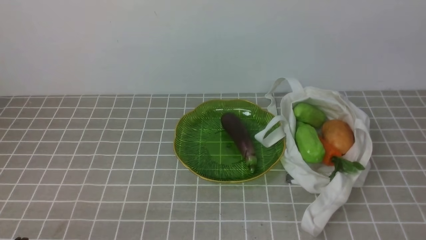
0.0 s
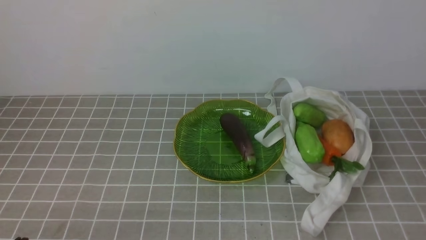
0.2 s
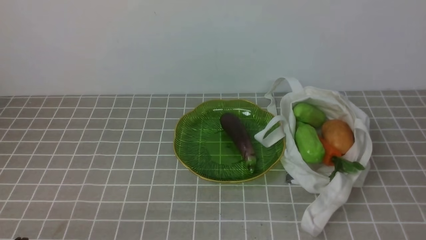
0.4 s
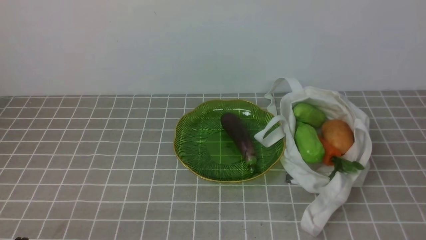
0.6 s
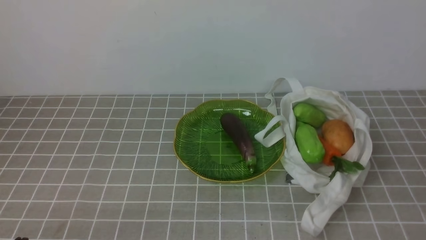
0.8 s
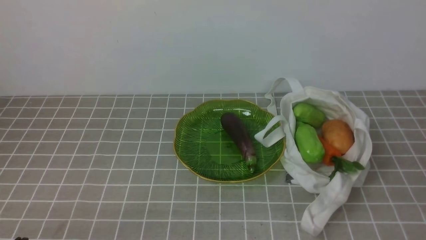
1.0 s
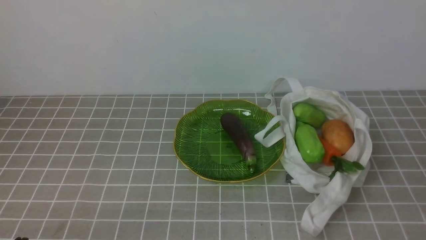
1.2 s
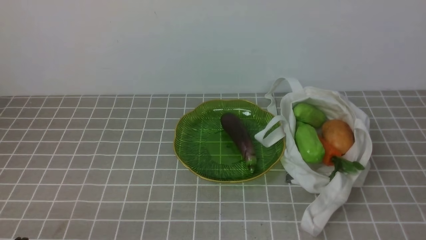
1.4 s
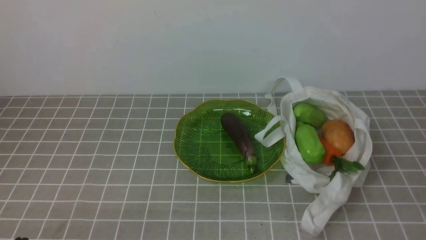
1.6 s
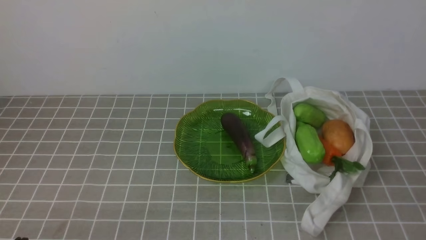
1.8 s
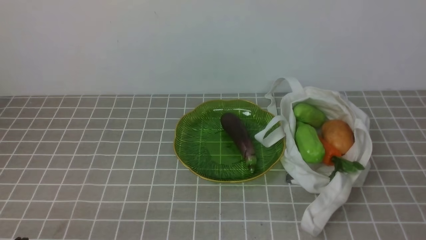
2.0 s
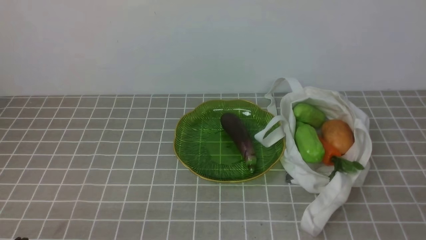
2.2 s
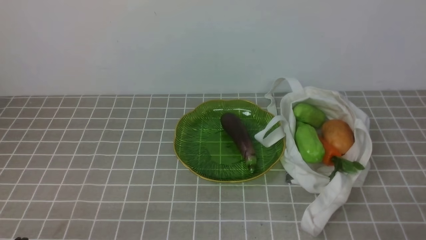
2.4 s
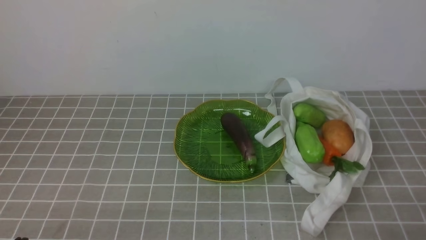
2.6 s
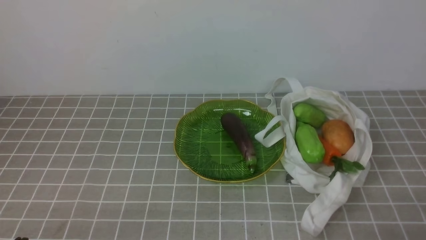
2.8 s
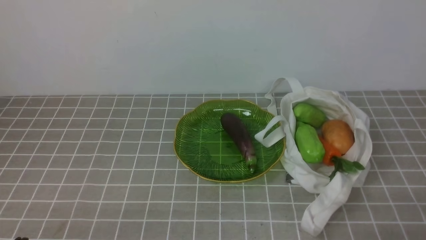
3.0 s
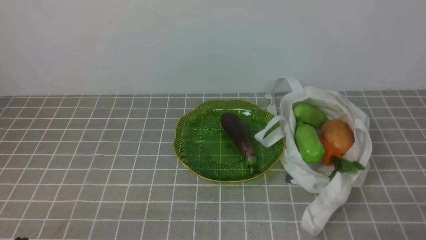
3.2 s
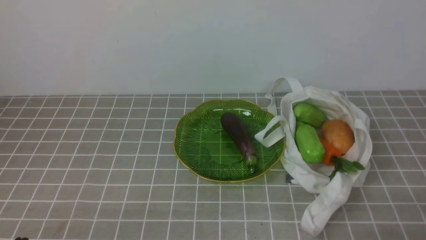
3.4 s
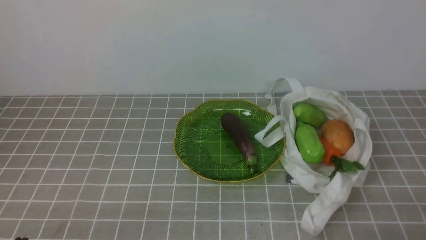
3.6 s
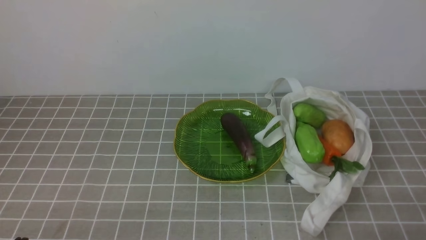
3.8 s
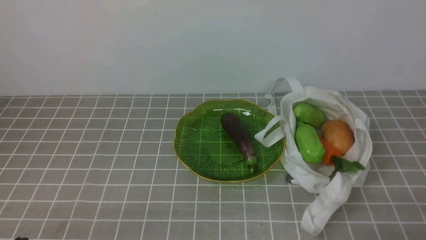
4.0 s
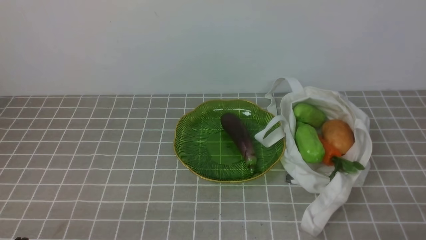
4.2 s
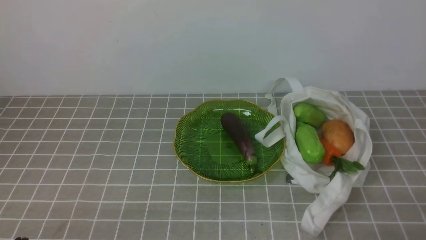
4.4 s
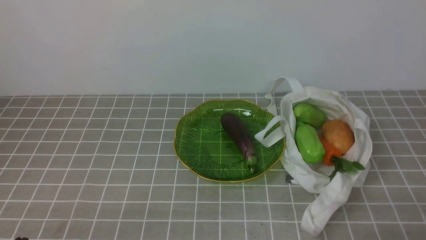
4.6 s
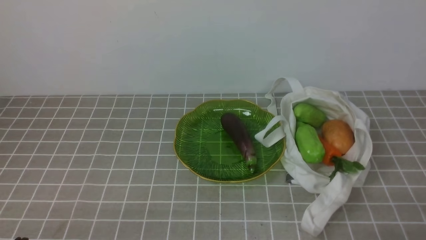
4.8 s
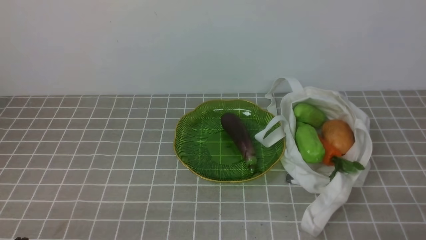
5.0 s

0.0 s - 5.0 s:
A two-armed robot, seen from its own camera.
Task of the whole recording: take vegetables from bag on grey coffee tablecloth place on plate.
3.4 s - 5.0 s: Both grippers stay put.

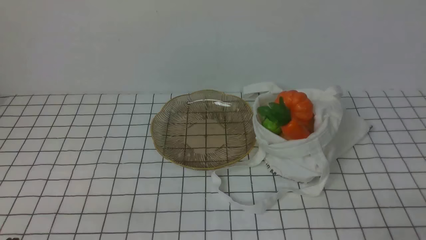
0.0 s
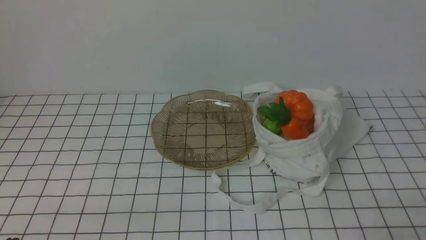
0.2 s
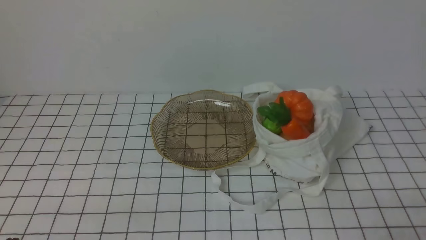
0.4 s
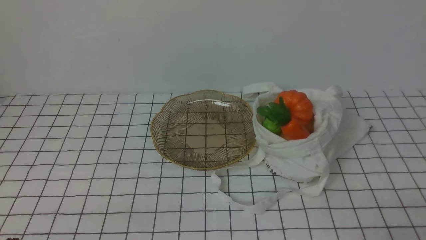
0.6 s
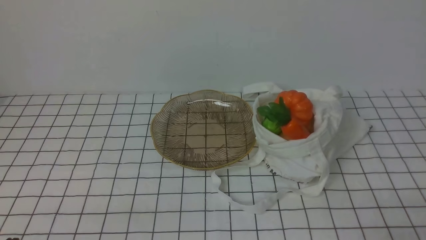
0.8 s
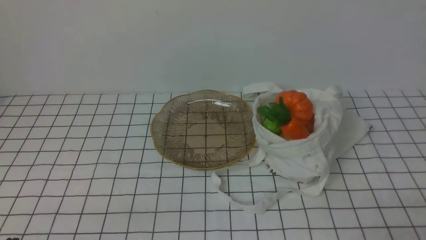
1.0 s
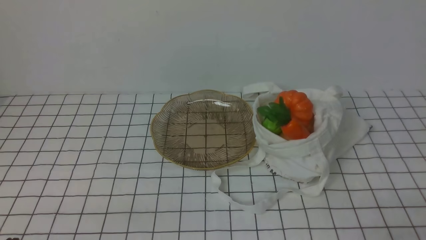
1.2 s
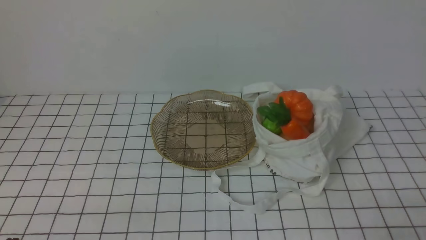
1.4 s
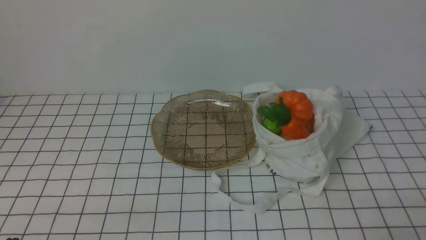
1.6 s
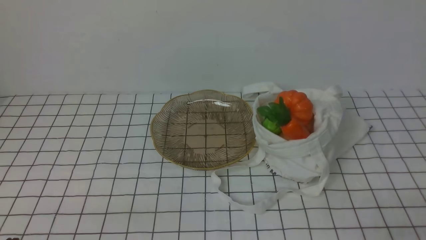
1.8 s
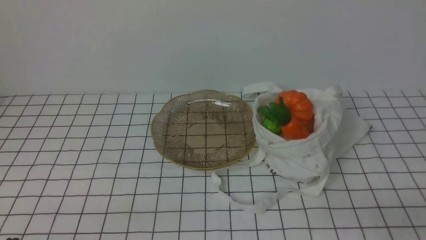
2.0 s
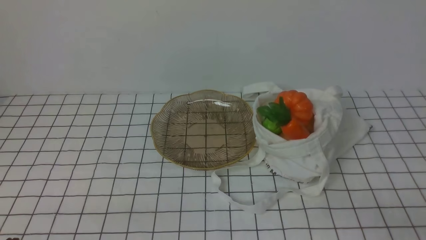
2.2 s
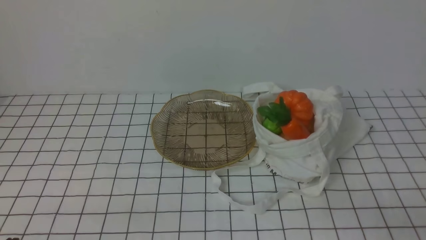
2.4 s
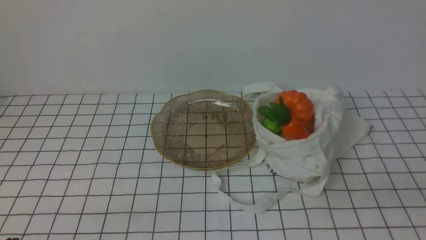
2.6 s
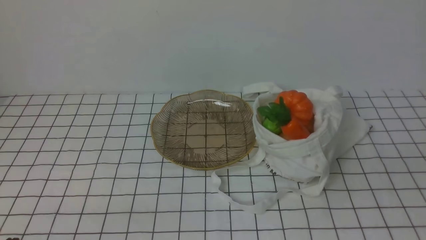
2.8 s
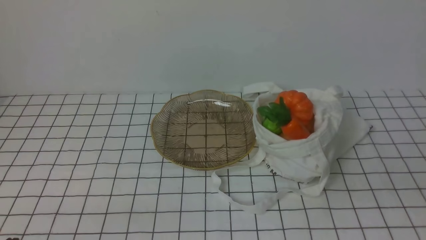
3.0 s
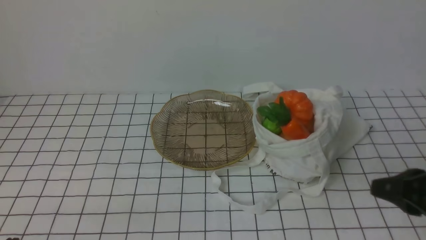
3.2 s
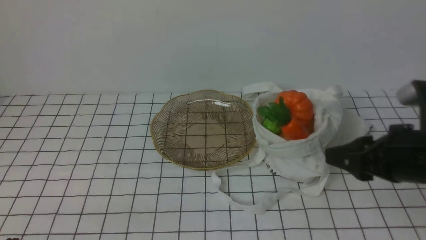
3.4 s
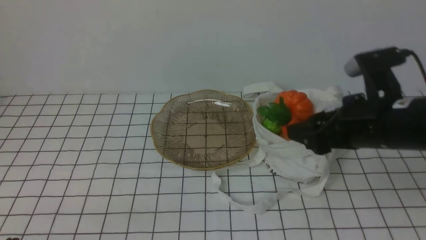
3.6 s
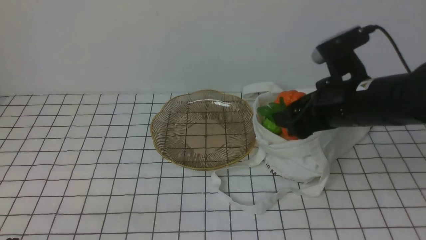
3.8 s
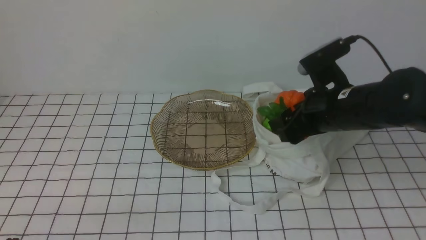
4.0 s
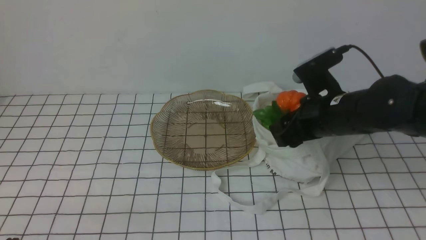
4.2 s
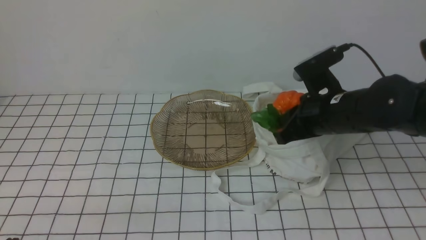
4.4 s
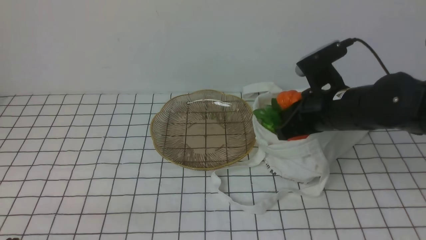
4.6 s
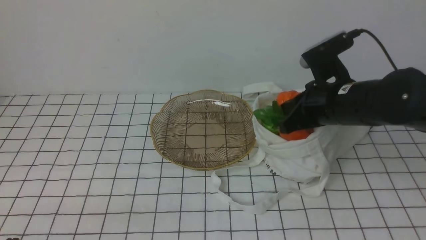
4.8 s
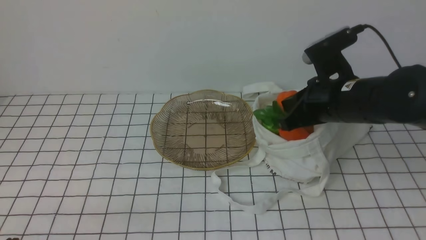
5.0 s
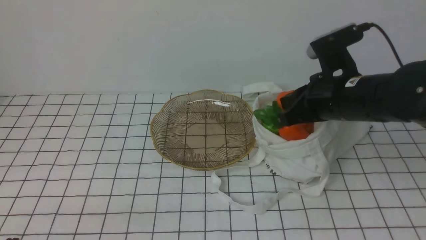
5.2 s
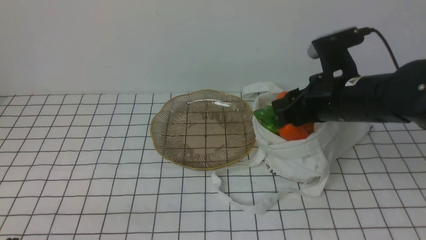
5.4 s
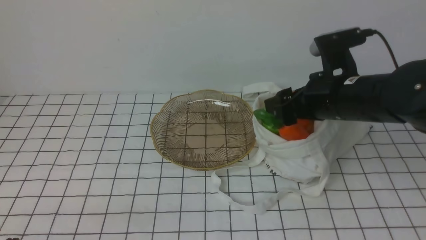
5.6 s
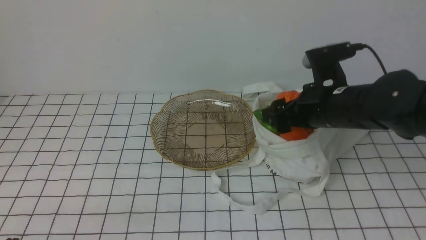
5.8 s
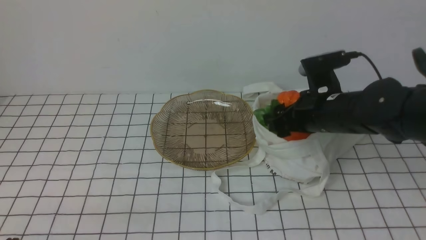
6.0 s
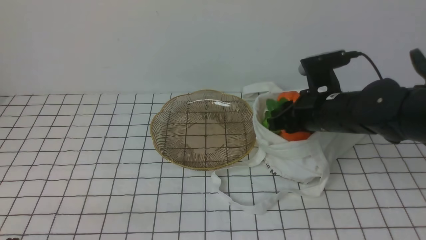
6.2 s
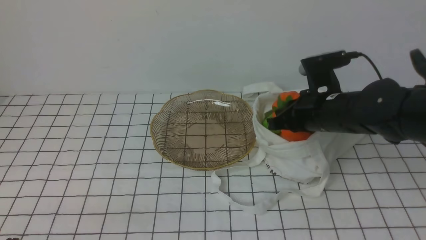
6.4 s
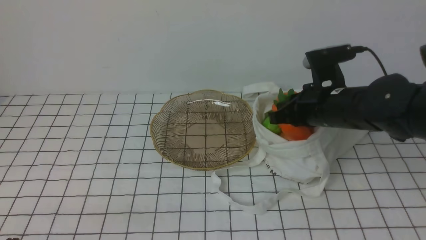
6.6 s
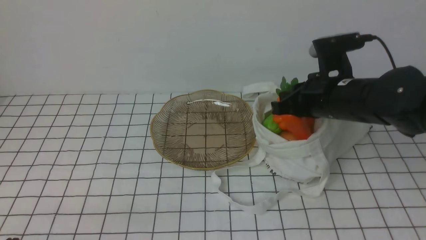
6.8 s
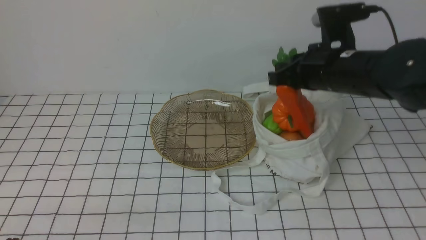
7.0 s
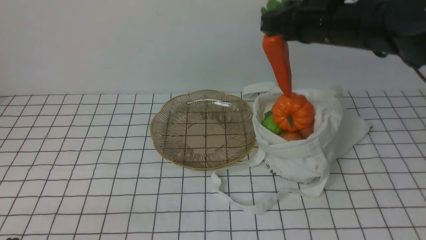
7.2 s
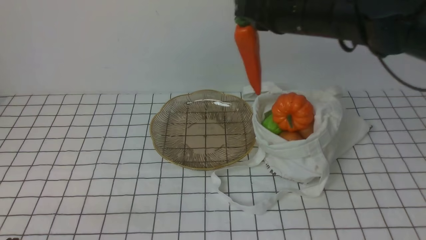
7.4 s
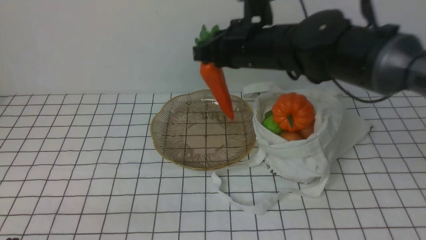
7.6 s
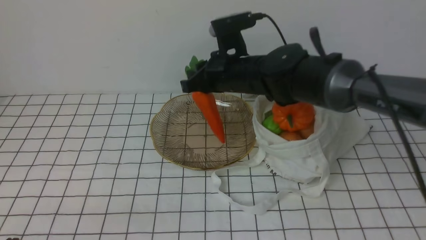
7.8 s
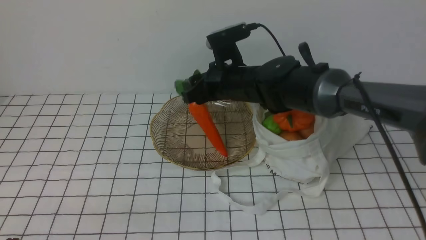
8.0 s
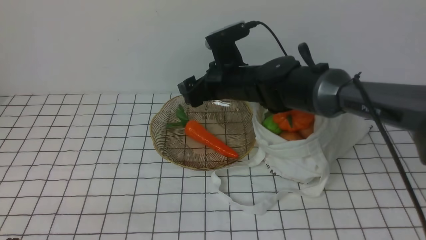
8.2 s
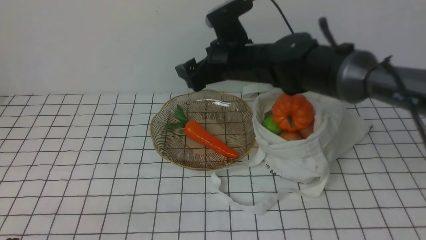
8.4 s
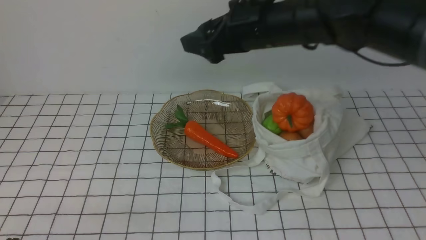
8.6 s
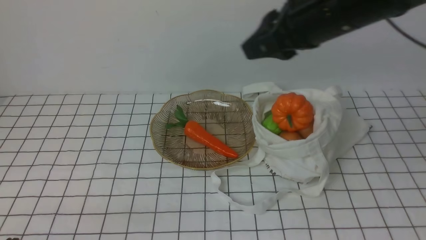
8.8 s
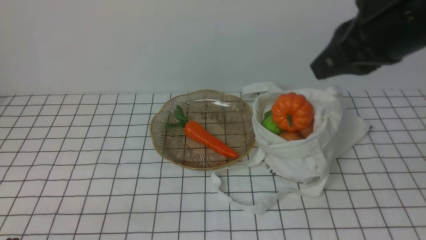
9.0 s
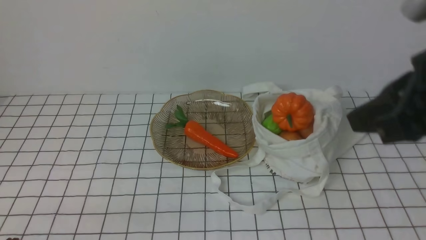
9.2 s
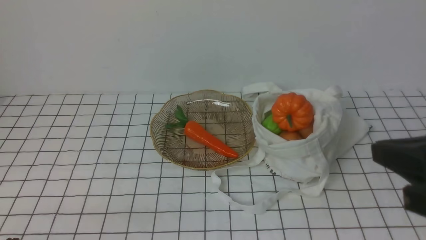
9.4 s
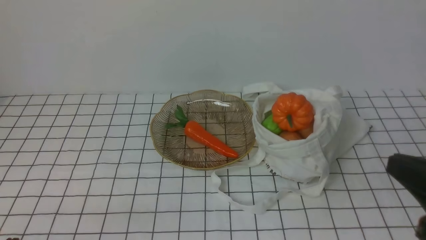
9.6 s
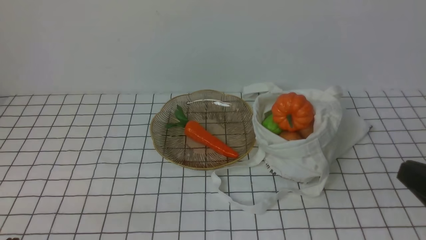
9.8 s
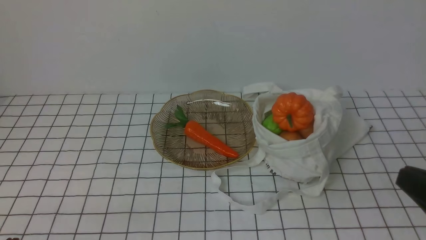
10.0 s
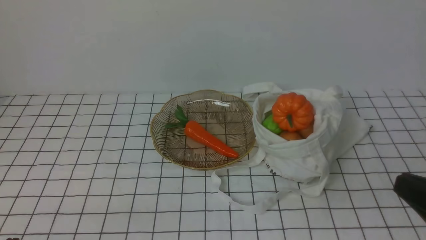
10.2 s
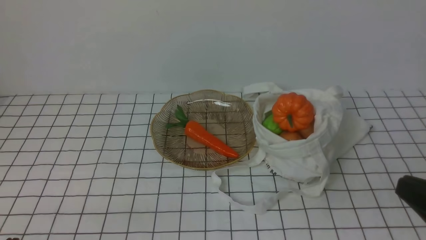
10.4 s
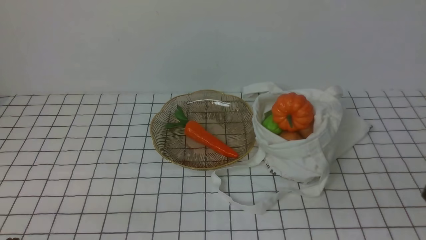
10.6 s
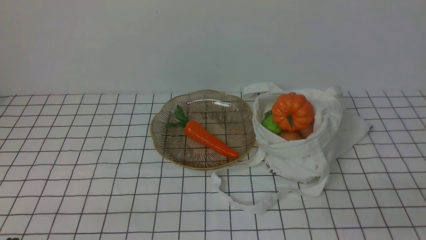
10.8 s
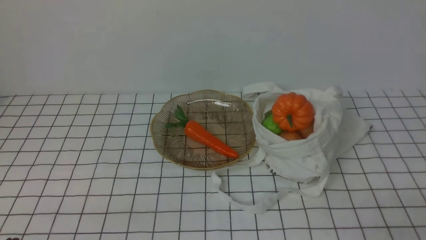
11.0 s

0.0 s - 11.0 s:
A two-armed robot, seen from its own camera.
Task of the whole recording: take vegetables from bag on white checkered tablecloth place on plate.
Step, 0.0 s - 6.4 s: Grasp the carrot with right gripper.
Step, 6.6 s - 8.2 s: Place the carrot on the plate with right gripper.
0.0 s - 1.6 s: Both grippers stay about where they are.
1.6 s - 3.2 s: The right gripper goes roughly 15 cm forward and upward.
3.2 s - 4.8 s: The right gripper goes about 20 cm forward and to the left, and opens, then closes once more.
4.8 s - 6.2 s: The right gripper opens.
6.2 s - 7.8 s: The right gripper moves to the left and forward, approximately 15 cm.
7.8 s - 9.4 s: The right gripper travels backward and to the right by roughly 35 cm, and opens, then closes once more.
9.4 s - 11.0 s: The right gripper moves downward, backward and to the right, roughly 20 cm.

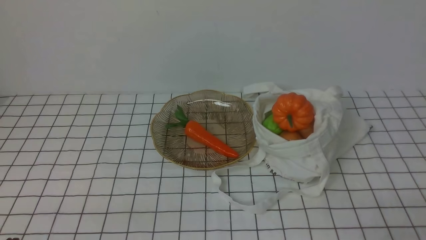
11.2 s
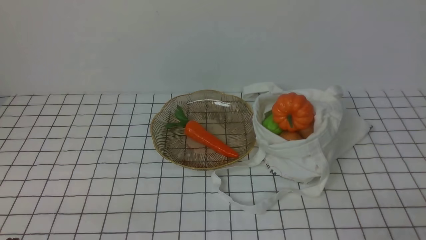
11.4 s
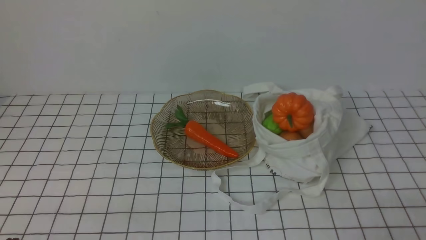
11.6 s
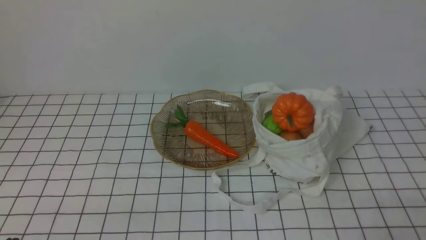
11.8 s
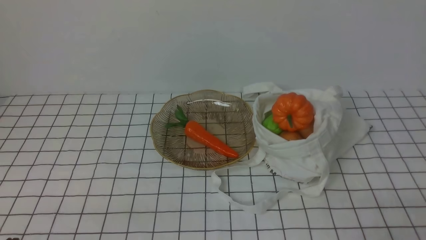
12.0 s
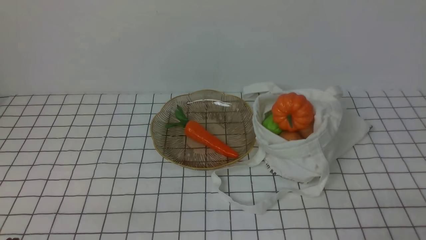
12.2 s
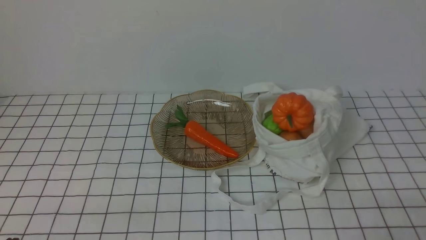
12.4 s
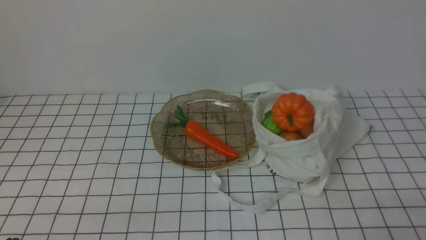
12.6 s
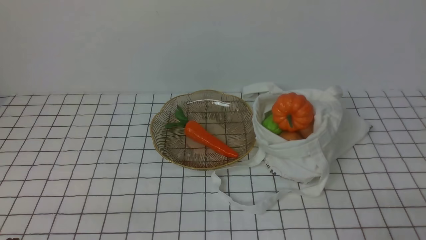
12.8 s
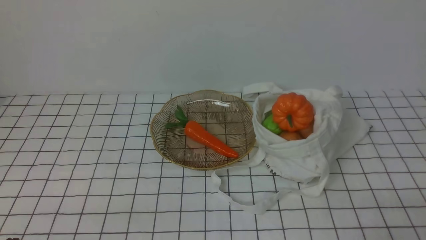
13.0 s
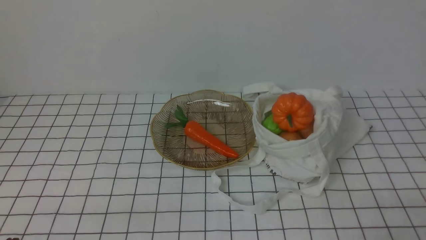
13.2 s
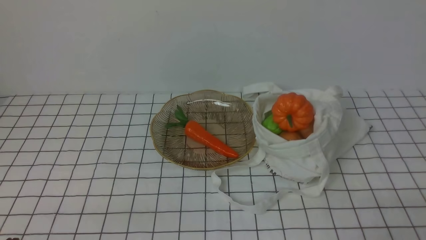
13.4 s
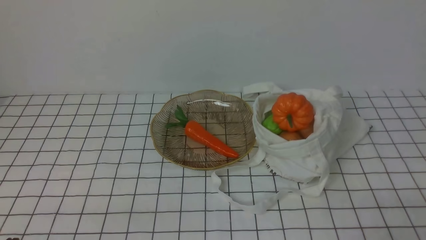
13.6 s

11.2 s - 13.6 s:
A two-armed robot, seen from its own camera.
Task of the whole recording: take vegetables from bag on white checkered tablecloth place on plate.
11.2 s - 13.6 s: Neither gripper changes place.
